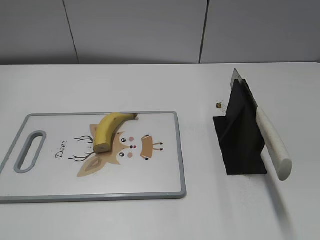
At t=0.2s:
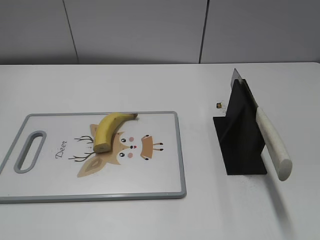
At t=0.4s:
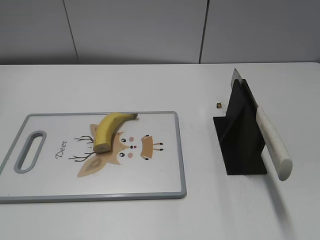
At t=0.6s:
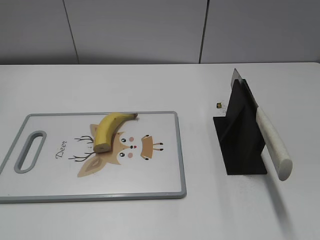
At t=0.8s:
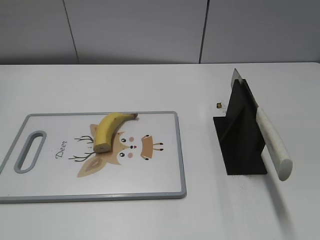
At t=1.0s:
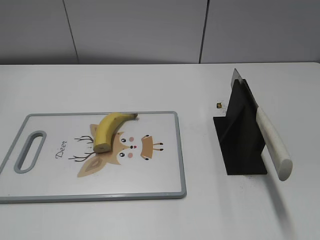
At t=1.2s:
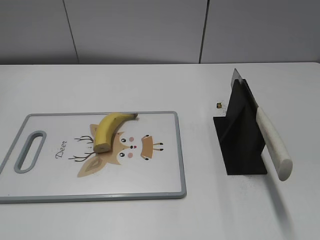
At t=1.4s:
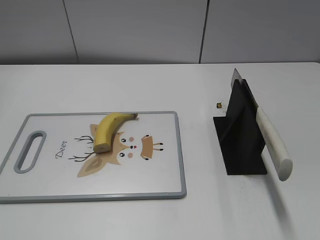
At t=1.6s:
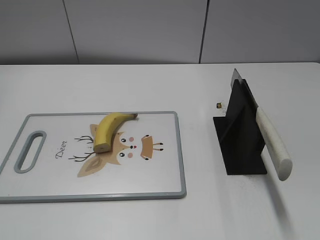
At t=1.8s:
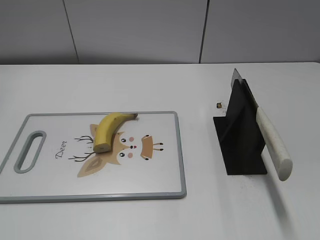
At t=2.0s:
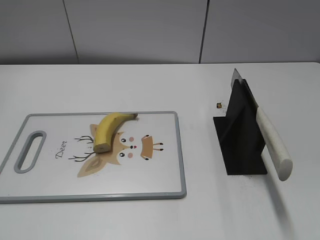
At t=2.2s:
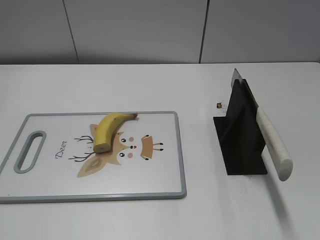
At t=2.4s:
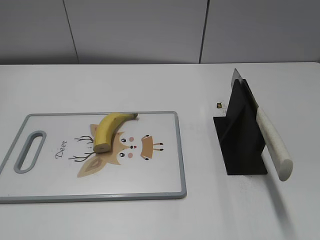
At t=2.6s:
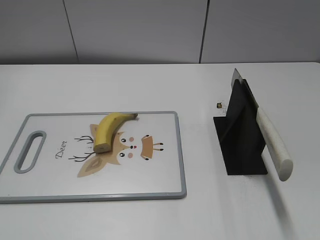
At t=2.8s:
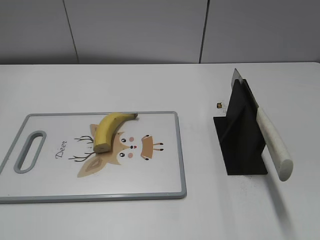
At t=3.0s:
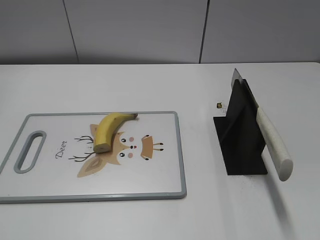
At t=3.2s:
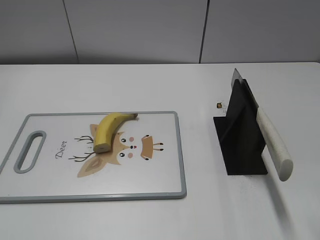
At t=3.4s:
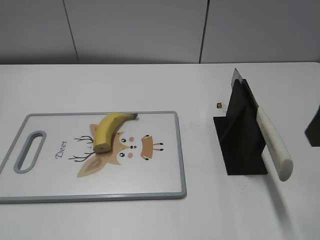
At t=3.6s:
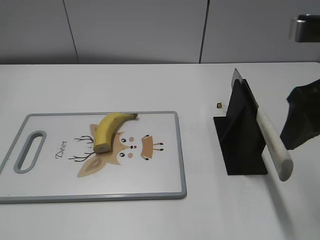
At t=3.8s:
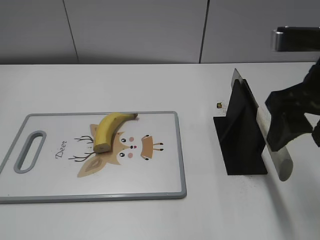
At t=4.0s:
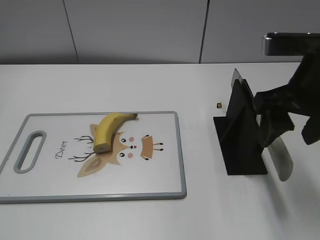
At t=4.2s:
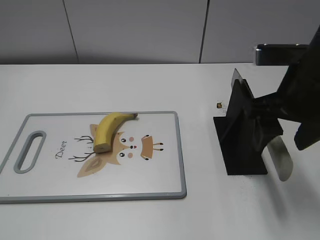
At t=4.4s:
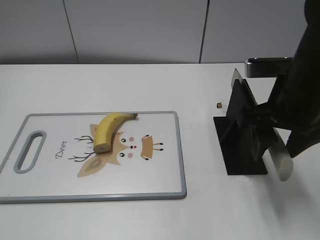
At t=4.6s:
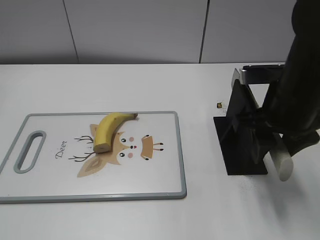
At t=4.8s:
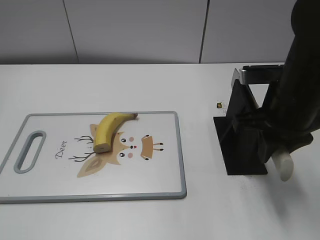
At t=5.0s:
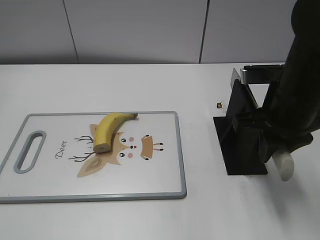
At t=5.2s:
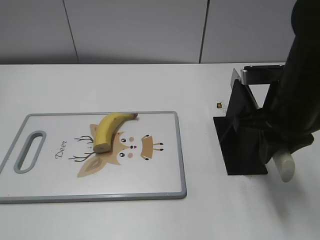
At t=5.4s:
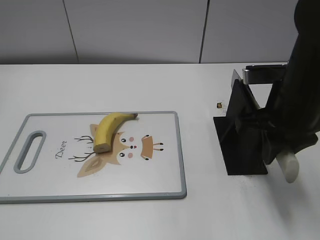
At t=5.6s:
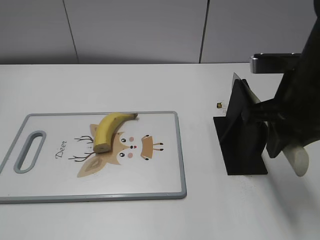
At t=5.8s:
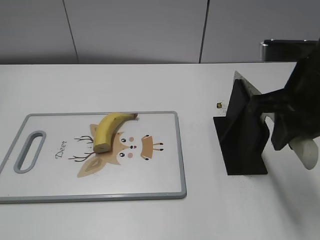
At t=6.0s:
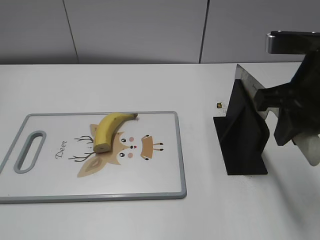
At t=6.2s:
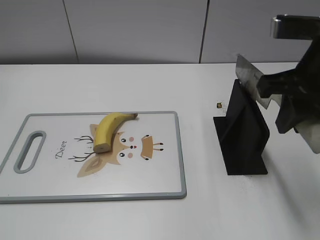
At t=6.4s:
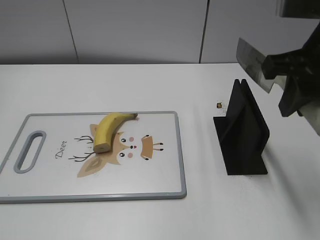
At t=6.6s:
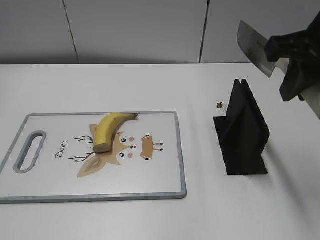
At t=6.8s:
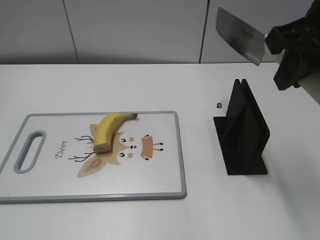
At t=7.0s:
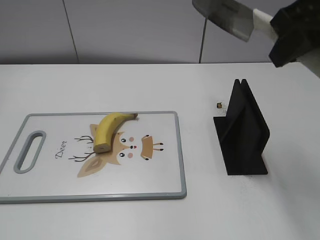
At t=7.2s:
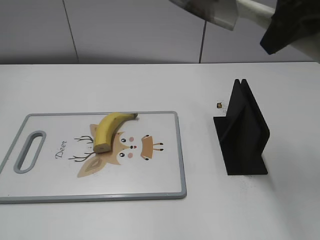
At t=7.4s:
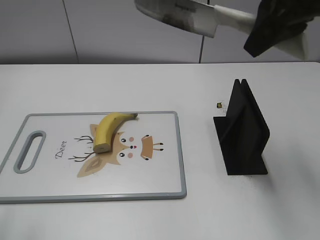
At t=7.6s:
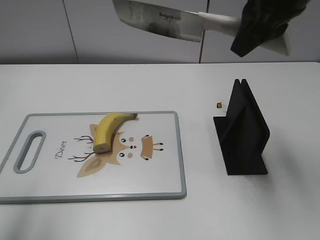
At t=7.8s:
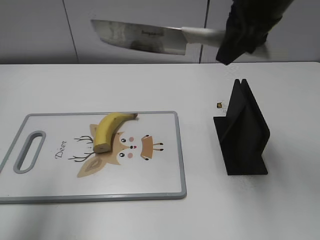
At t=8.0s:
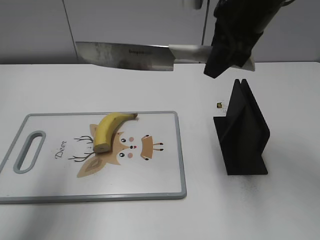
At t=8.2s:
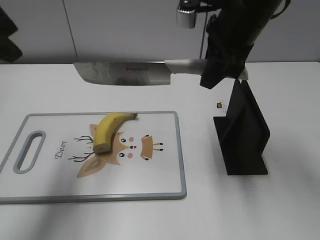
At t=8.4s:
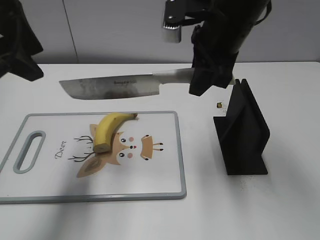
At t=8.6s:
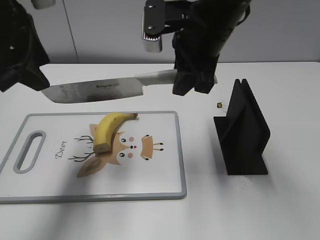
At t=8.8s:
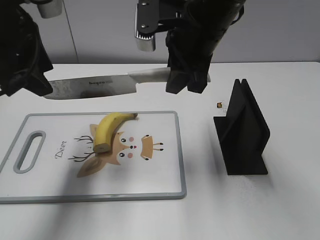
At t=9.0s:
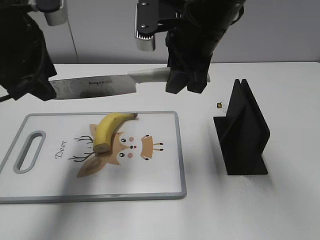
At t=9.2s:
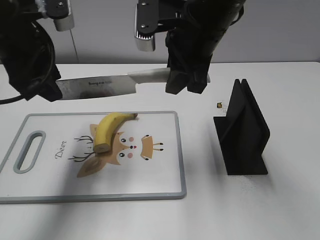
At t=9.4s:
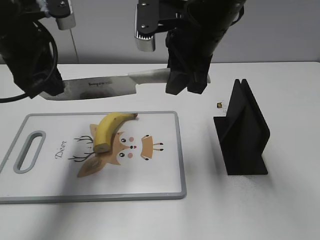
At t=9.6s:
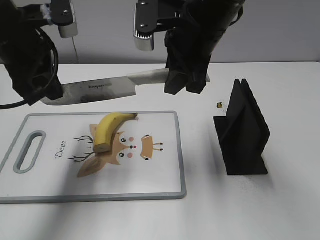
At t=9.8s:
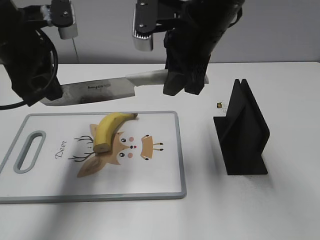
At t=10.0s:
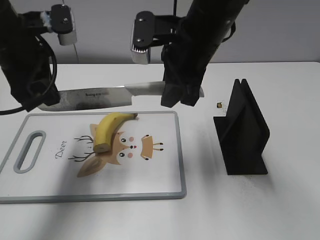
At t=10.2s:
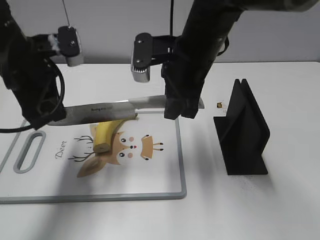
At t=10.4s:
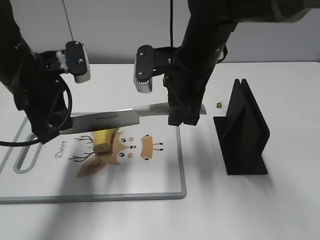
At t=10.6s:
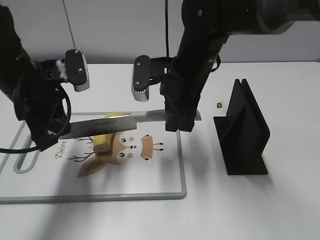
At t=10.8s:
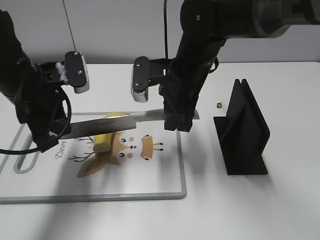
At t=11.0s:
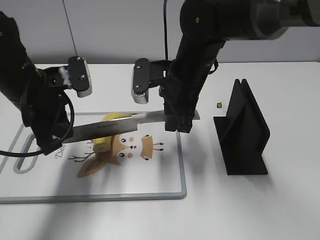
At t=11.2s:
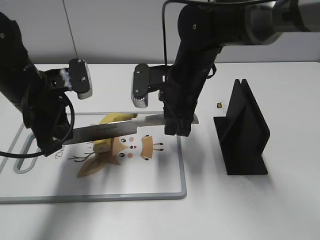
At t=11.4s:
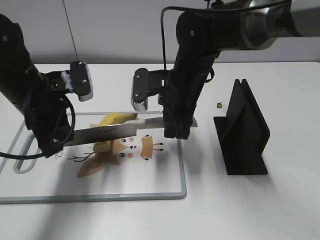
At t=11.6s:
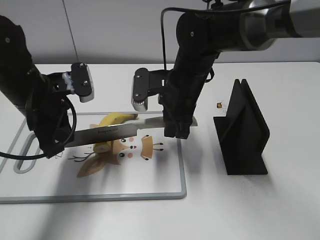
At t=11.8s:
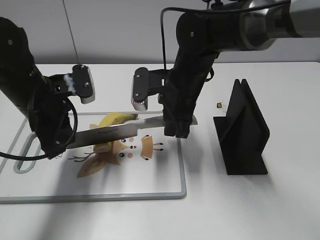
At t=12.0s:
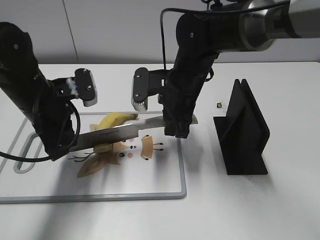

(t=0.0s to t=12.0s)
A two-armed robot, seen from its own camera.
Task of the whole recording: cut banana.
Step, t=0.0s - t=6.2s: Grab the knife handle with your right hand.
Step, t=6.4s - t=12.0s: Lift the knife with your right hand.
t=3.0s - t=4.4s: The right gripper goes some 20 cm forward, downward and to the left.
t=4.4s - t=6.0s: The right gripper moves about 5 cm, and closes up.
t=6.0s - t=7.6s: The left gripper heads forward and upward, covering about 20 cm, while the right gripper shifts about 10 cm upward and forward.
t=7.6s - t=9.0s: The right gripper moves to the left and downward, some 10 cm, while the left gripper is displaced forward, to the right and downward by approximately 20 cm.
t=9.0s - t=10.4s: The grippers both shift downward by roughly 10 cm. The left gripper closes.
t=10.4s - t=12.0s: The grippers both shift downward by roughly 5 cm.

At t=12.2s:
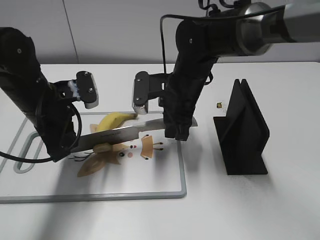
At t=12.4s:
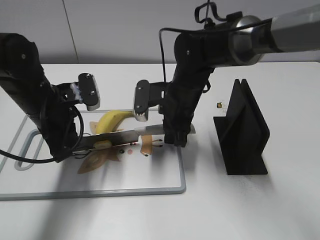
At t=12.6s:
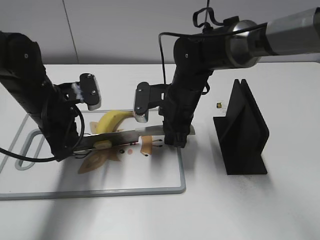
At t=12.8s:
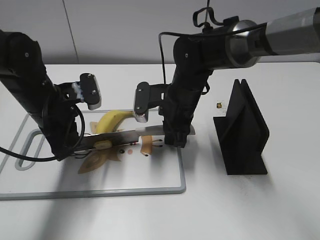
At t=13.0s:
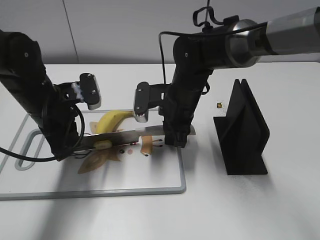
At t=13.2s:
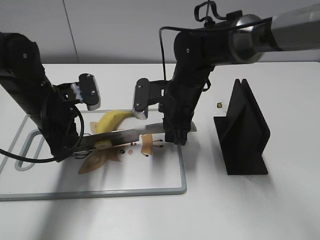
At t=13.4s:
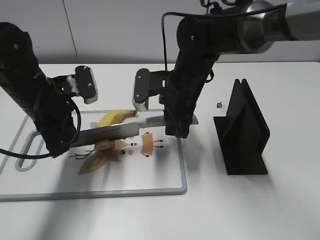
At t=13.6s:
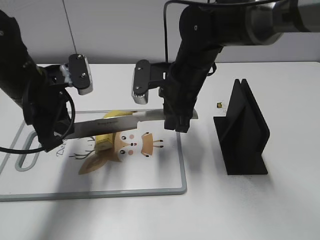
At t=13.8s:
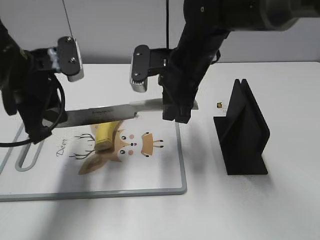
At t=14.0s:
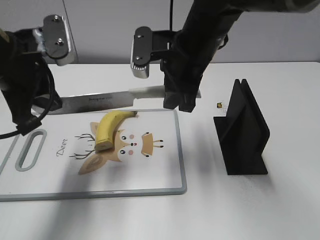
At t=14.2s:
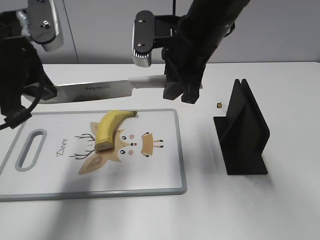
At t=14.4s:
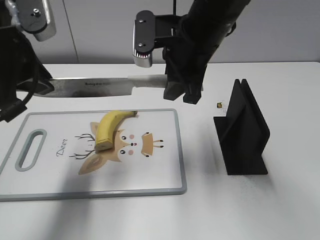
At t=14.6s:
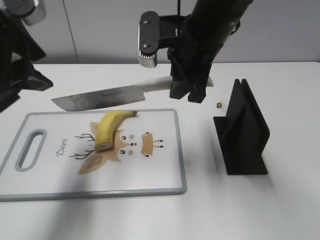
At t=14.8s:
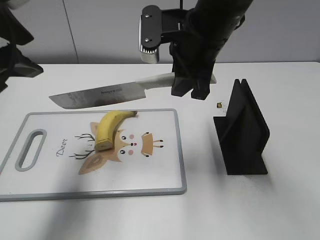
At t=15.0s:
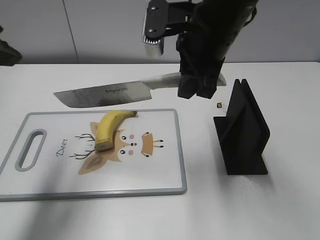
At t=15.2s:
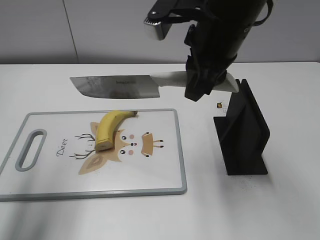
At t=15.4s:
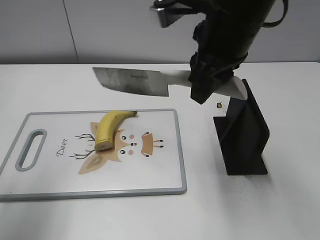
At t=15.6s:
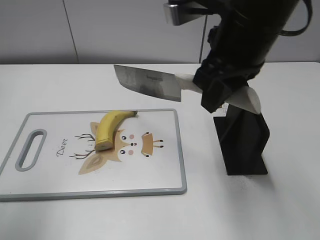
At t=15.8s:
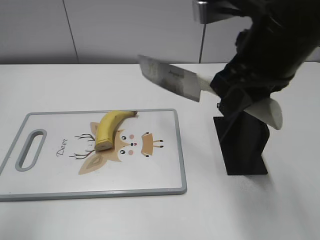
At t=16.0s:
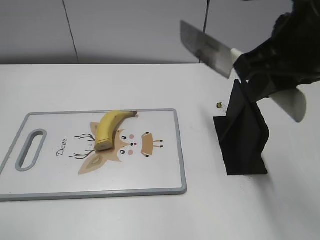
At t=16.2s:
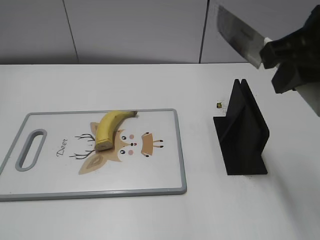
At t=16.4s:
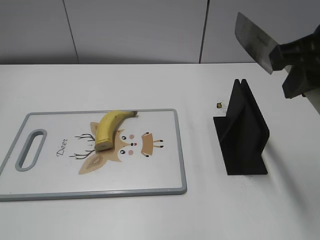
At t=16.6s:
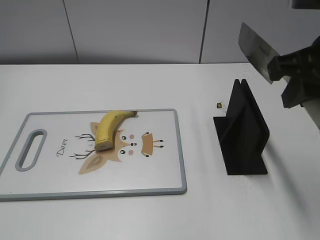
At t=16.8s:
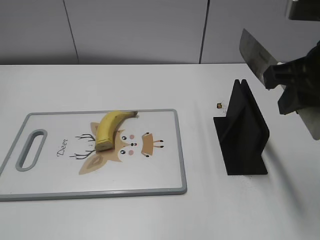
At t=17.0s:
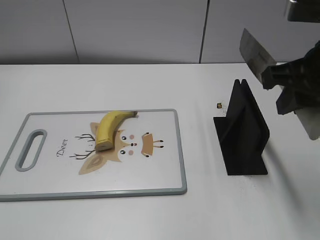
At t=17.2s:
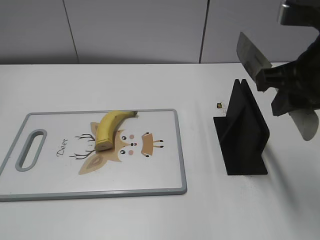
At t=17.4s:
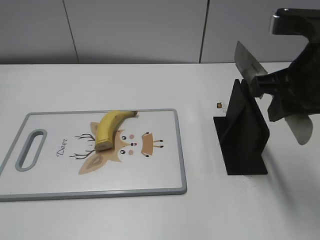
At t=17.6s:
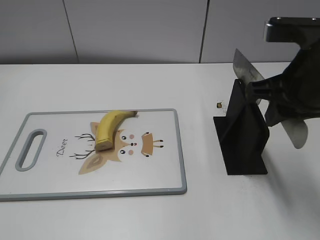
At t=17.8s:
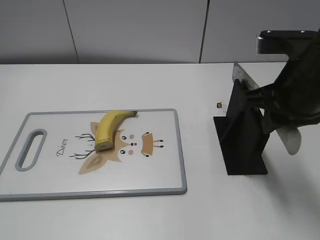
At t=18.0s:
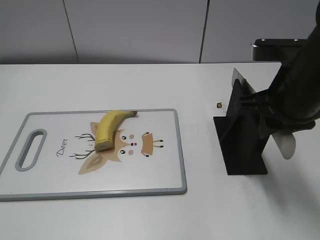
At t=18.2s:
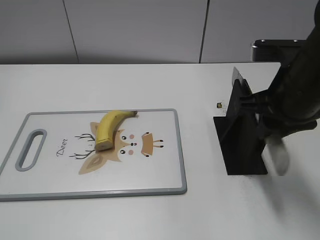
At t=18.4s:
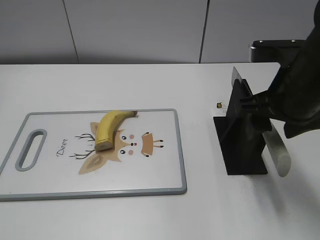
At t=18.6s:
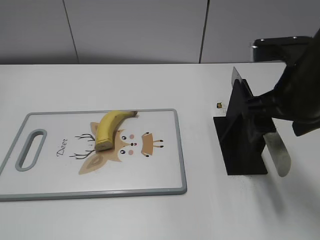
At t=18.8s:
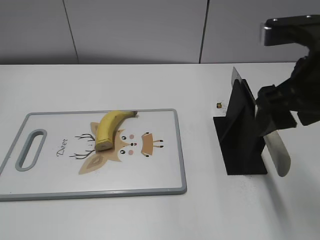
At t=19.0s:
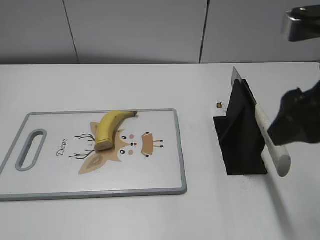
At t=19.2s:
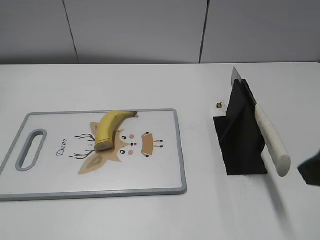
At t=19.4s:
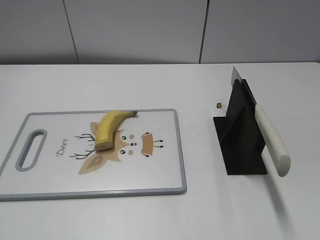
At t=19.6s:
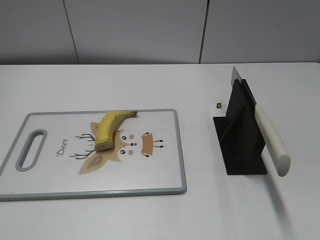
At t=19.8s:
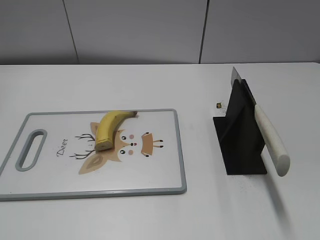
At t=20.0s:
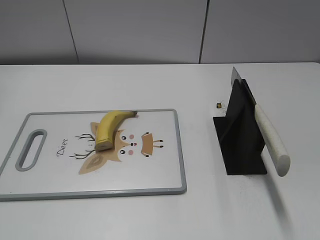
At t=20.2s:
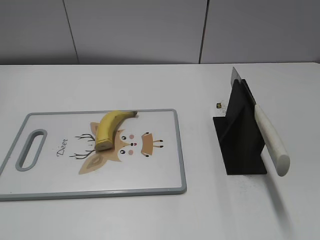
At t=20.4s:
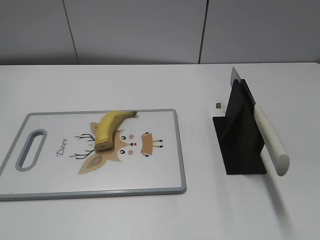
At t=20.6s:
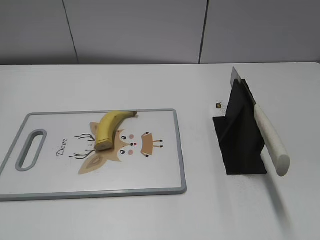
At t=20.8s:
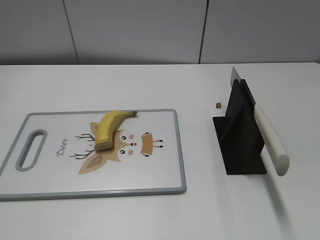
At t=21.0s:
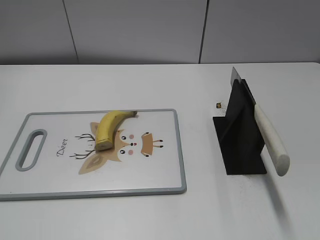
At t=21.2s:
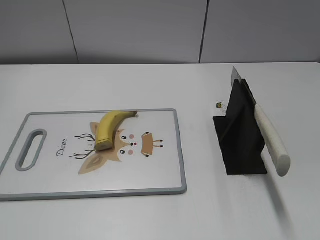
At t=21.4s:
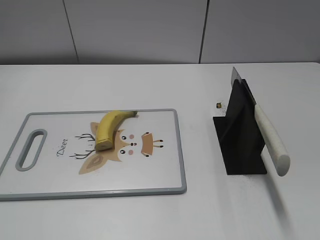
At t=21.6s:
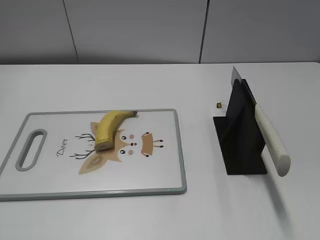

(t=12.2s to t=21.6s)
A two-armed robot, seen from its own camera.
Task of the whole recording: cut banana.
Step, t=12.2s - t=16.2s: Cut the banana with your right hand.
Step, t=16.4s - t=18.0s: Lift the knife with your right hand.
Step, t=18.2s - t=21.6s: Place the knife on the storage rack with your right hand.
t=12.2s - t=13.8s: Both grippers move upward, approximately 5 cm.
t=13.8s - t=15.4s: The left gripper heads upward, backward and to the left, covering some 15 cm, and opens. Meanwhile the right gripper is displaced upward and backward by roughly 10 cm.
t=15.4s - t=17.0s: The right gripper shifts about 10 cm to the right and backward. Meanwhile the left gripper heads backward, covering about 20 cm.
t=17.0s - t=18.4s: The right gripper shifts approximately 5 cm downward, and opens.
t=18.4s - t=20.0s: The right gripper travels backward and to the right by about 25 cm.
